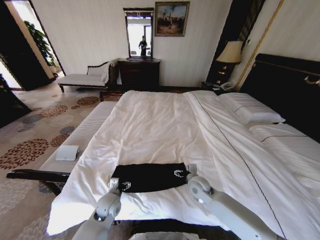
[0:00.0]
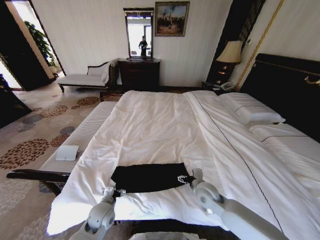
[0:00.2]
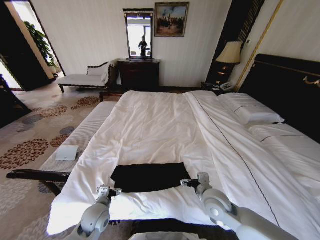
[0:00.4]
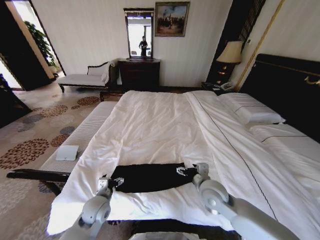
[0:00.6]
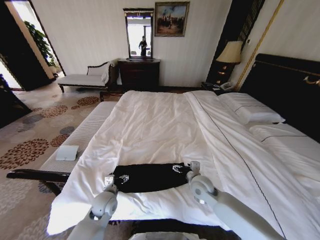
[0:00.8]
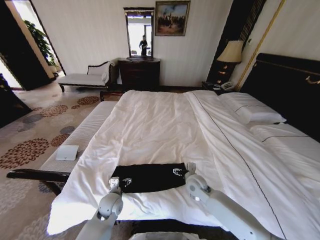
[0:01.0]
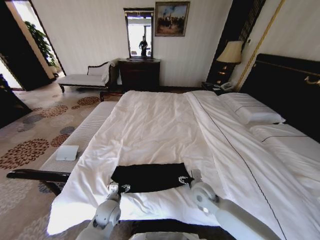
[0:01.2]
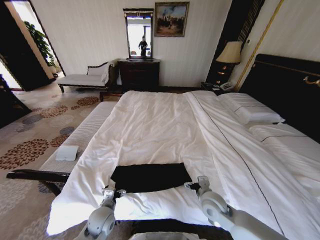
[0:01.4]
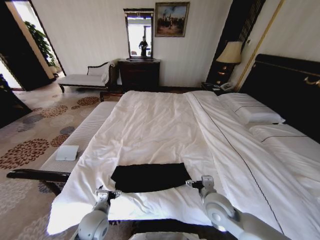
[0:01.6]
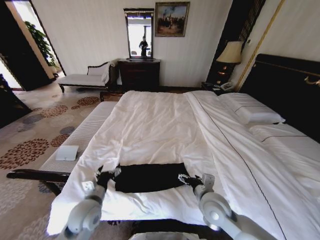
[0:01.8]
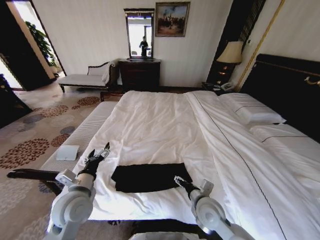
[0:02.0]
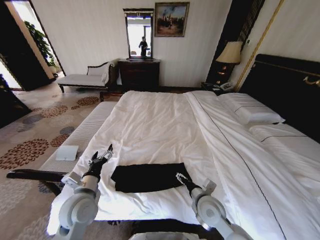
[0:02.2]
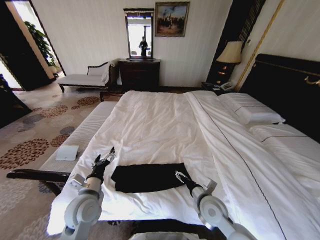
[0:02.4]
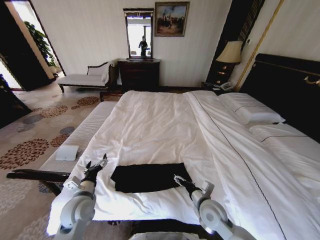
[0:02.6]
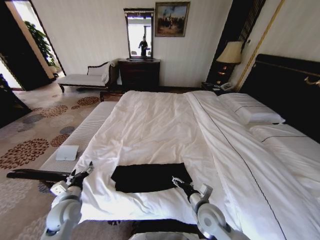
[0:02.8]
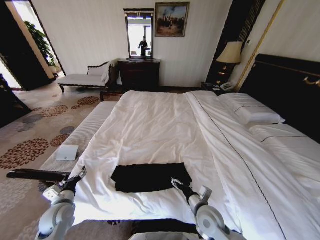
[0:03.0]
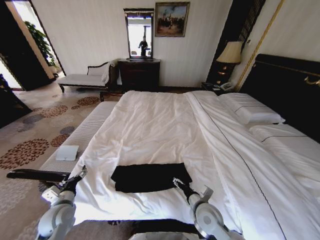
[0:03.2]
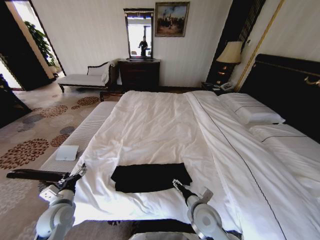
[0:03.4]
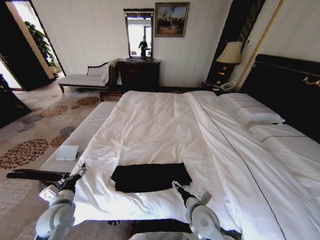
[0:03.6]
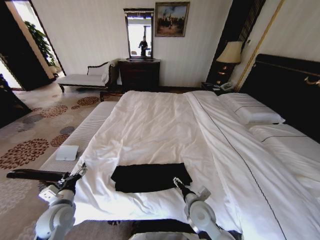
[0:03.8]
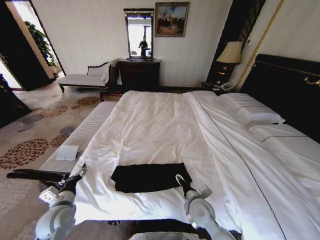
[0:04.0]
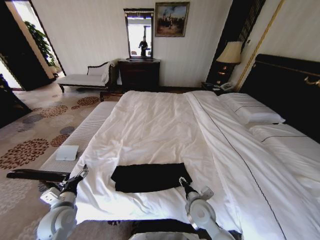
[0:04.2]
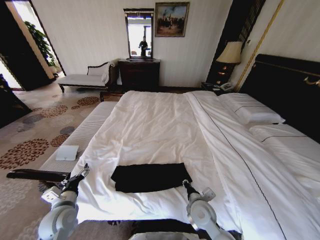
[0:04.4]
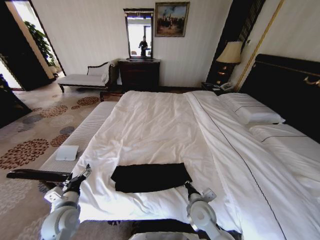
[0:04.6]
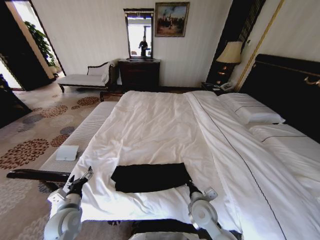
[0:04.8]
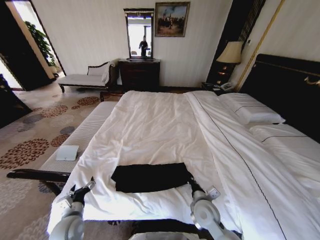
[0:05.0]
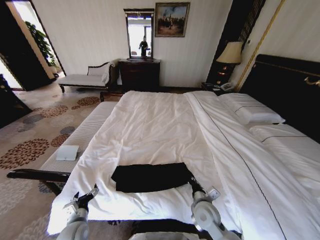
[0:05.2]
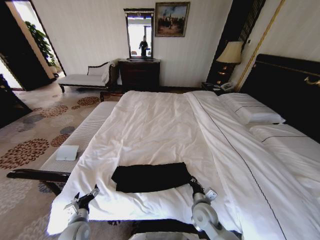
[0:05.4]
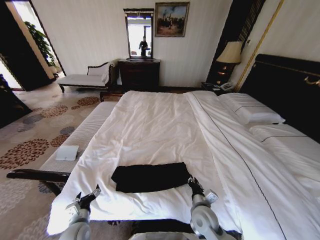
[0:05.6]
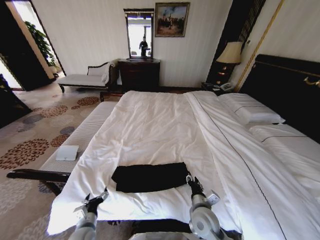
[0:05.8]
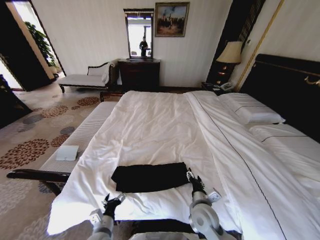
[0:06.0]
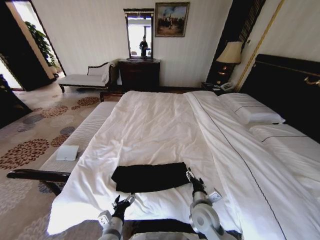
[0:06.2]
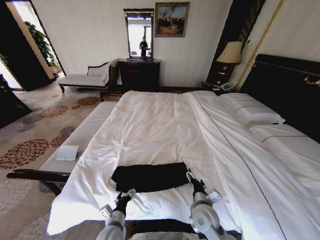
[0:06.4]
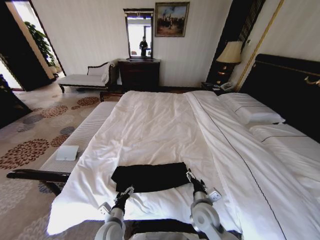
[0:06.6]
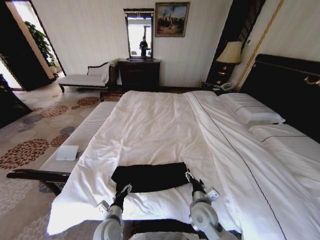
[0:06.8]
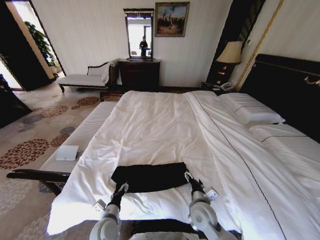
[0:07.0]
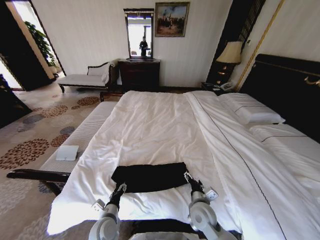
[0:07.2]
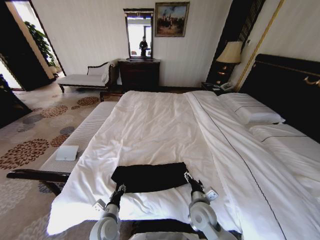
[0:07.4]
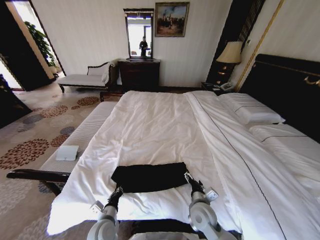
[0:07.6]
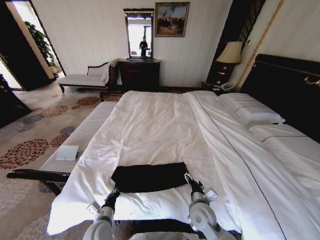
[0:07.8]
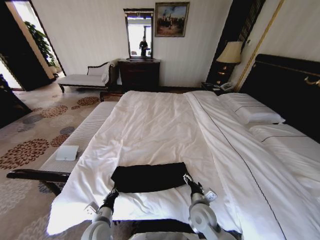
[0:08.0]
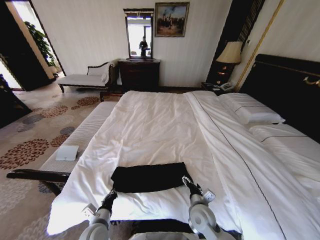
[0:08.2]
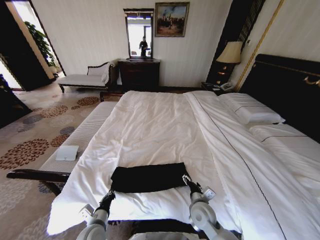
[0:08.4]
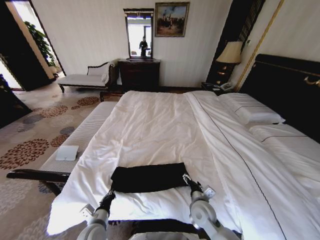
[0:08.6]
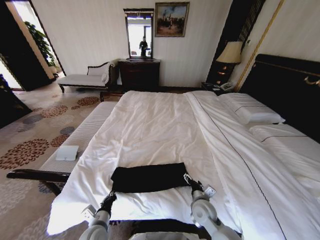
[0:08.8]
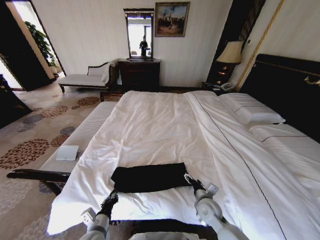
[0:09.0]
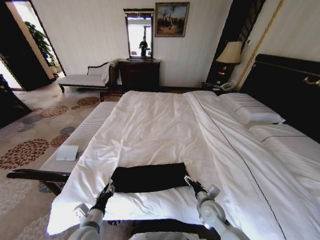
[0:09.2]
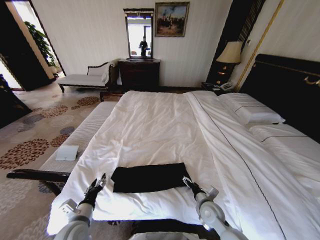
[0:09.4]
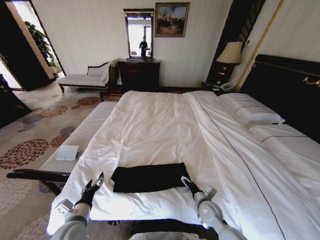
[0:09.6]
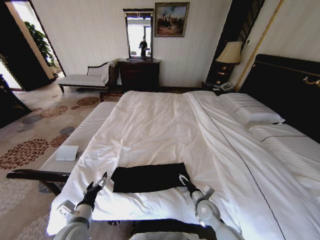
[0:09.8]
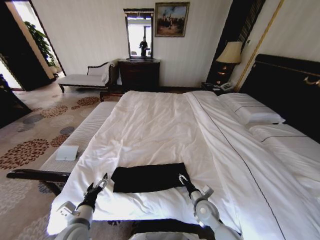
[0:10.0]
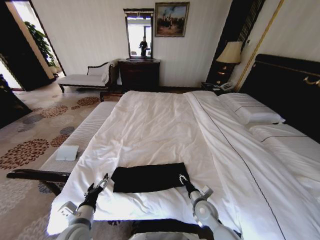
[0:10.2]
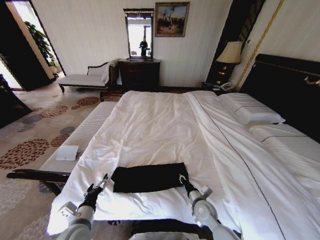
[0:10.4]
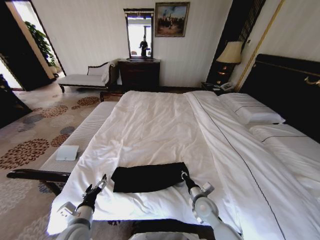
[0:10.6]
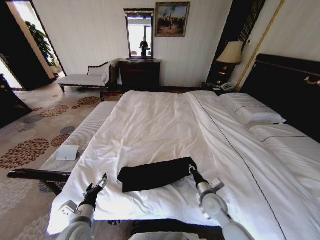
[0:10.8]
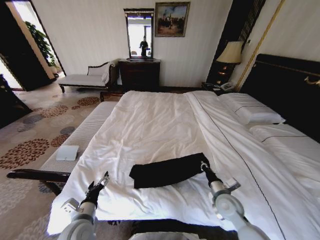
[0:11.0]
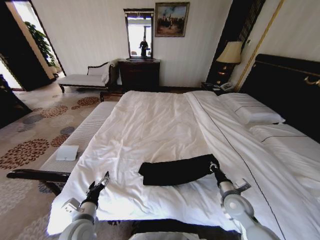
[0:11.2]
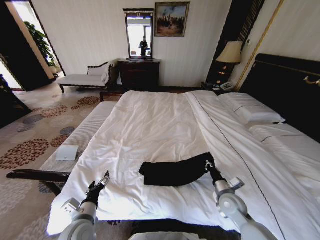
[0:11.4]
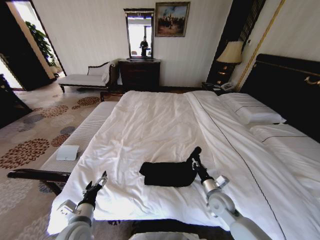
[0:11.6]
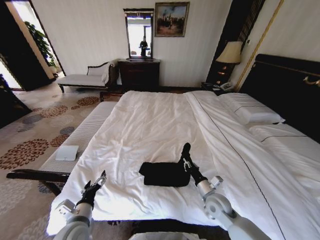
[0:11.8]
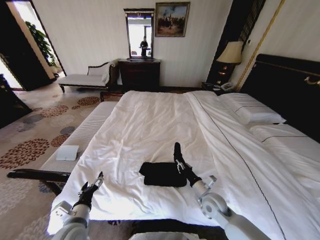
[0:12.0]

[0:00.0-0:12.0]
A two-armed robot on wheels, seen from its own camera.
Task of the whole recording: Fold the clothes on the bed.
0:00.0 to 0:01.6: The right gripper moves forward and backward over roughly 10 cm, changing direction 2 times; the left gripper swings forward and backward, some 5 cm each way, with 2 reversals.
0:01.6 to 0:03.0: The left gripper goes some 15 cm to the left, while the right gripper shifts approximately 5 cm downward.
0:03.0 to 0:04.4: The left gripper shifts by roughly 5 cm. The right gripper closes up.
0:04.4 to 0:06.0: The right gripper closes, then opens again. The left gripper shifts about 15 cm to the right, downward and backward.
0:06.0 to 0:07.6: The left gripper closes up.
0:07.6 to 0:09.0: The right gripper shifts by roughly 5 cm.
0:09.0 to 0:10.4: The right gripper closes, while the left gripper travels upward by about 5 cm, and opens up.
0:10.4 to 0:12.0: The right gripper shifts about 5 cm upward, and moves some 10 cm to the right and comes back.

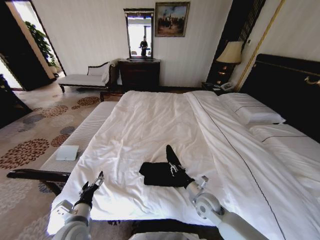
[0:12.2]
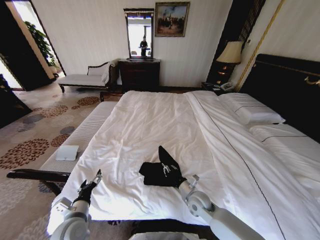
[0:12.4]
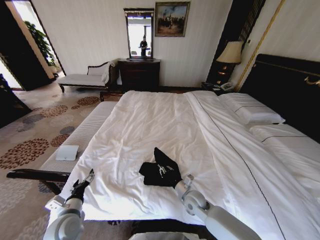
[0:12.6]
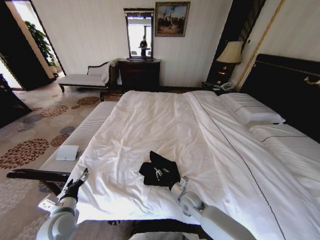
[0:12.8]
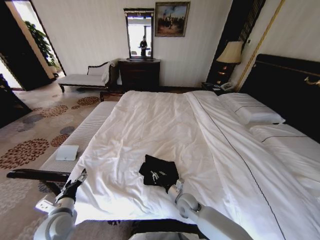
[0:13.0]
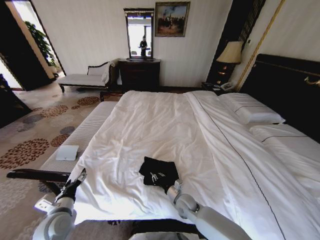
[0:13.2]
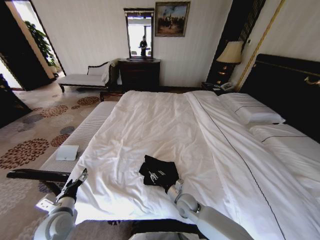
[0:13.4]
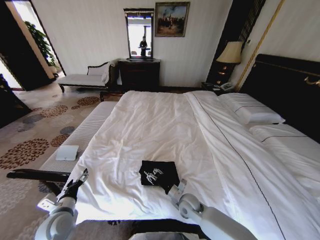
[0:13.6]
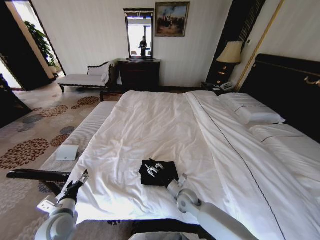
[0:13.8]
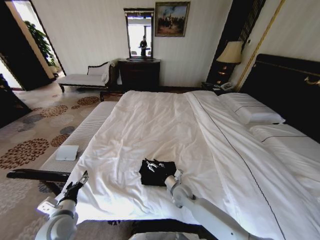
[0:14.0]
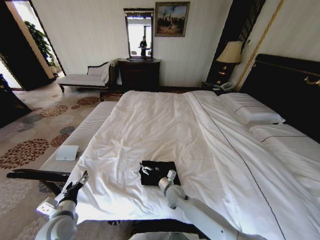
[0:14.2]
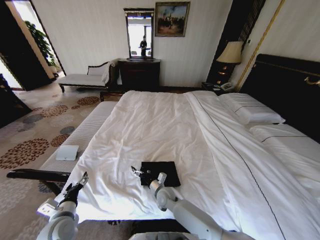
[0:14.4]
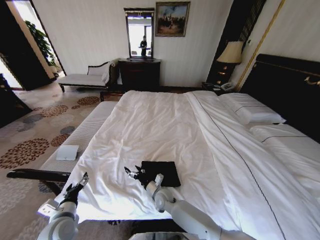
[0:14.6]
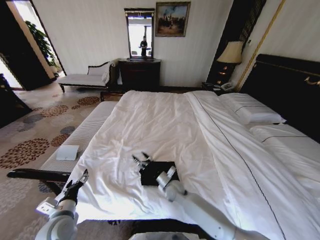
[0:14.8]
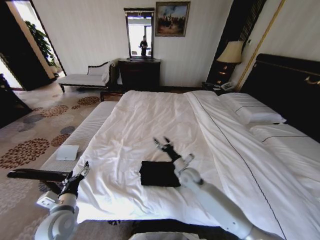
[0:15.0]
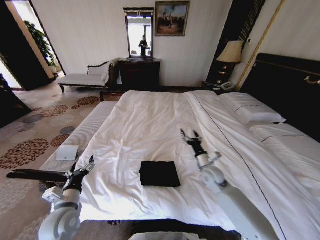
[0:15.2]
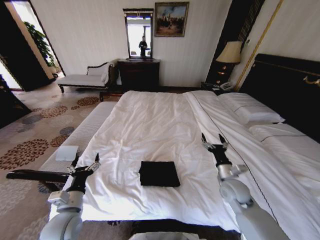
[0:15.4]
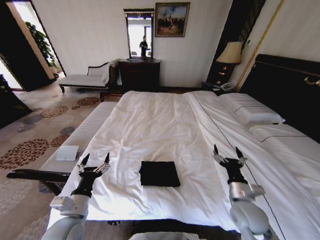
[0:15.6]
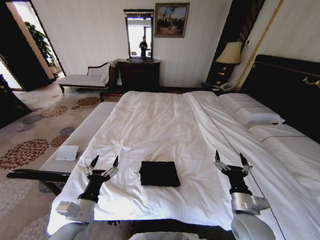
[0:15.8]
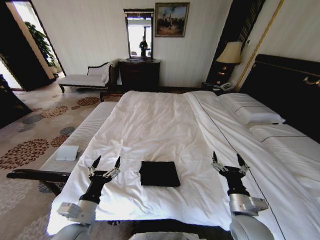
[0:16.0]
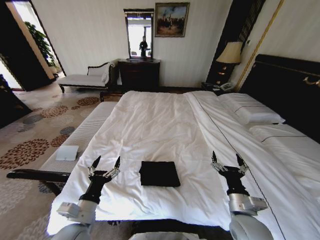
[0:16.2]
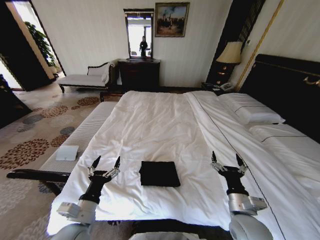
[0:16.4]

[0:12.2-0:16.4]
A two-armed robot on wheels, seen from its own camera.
Task of the whole recording: Fold the clothes on the bed.
0:12.2 to 0:13.6: The grippers both shift to the left by approximately 10 cm.
0:13.6 to 0:15.0: The right gripper heads forward and upward, covering roughly 15 cm, reaches some 10 cm to the left, then returns, and opens.
0:15.0 to 0:16.4: The right gripper goes approximately 25 cm backward and to the right. Meanwhile the left gripper shifts approximately 10 cm to the right.
